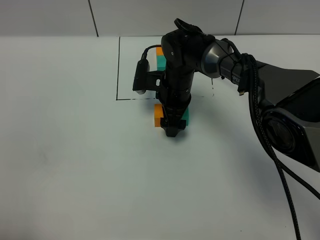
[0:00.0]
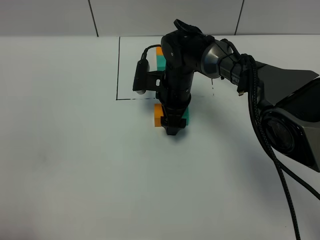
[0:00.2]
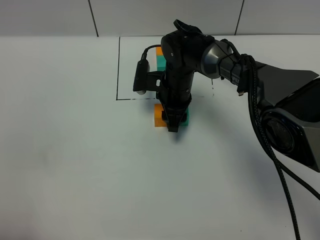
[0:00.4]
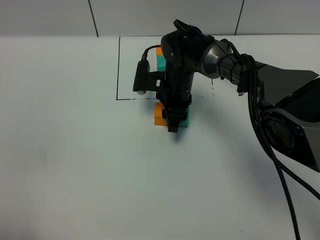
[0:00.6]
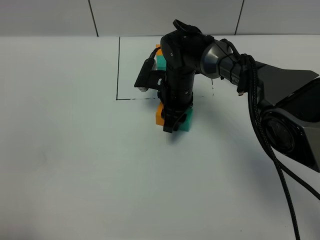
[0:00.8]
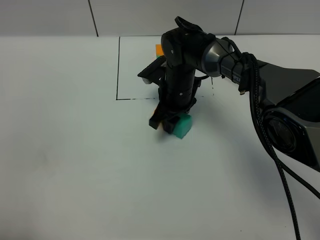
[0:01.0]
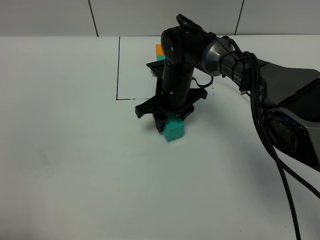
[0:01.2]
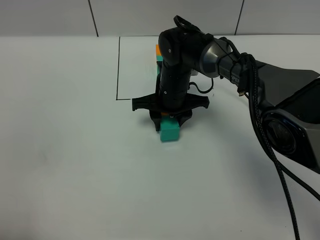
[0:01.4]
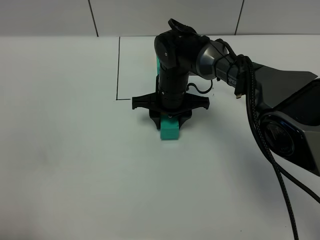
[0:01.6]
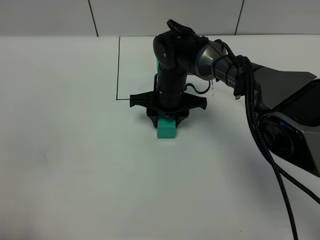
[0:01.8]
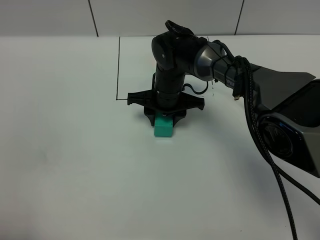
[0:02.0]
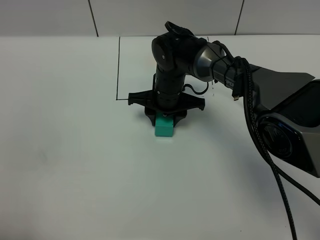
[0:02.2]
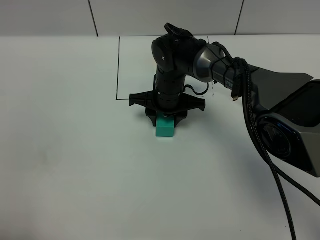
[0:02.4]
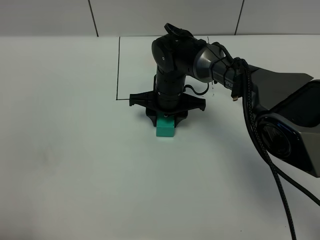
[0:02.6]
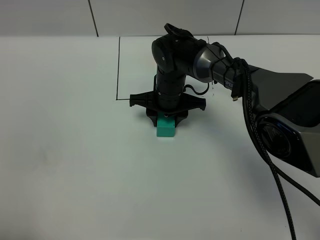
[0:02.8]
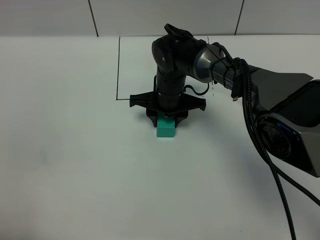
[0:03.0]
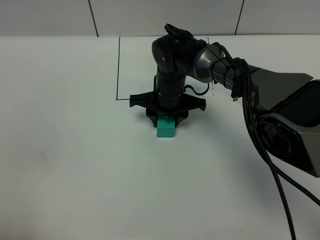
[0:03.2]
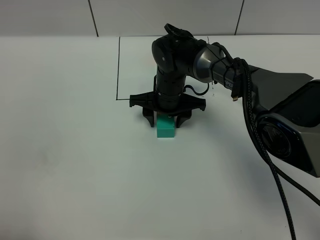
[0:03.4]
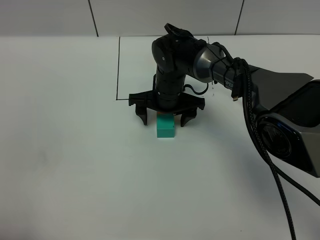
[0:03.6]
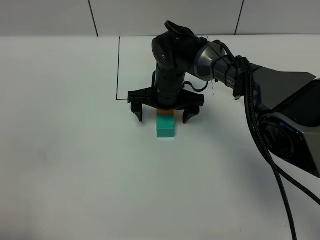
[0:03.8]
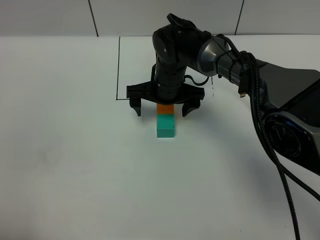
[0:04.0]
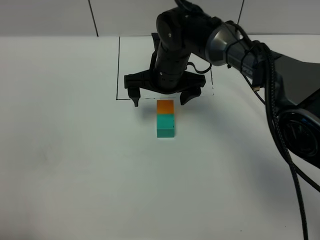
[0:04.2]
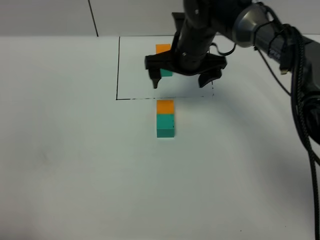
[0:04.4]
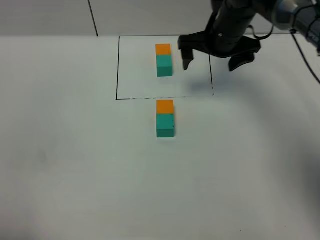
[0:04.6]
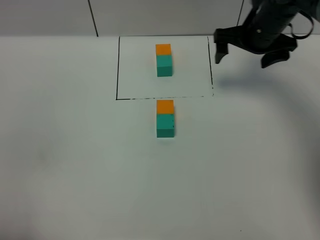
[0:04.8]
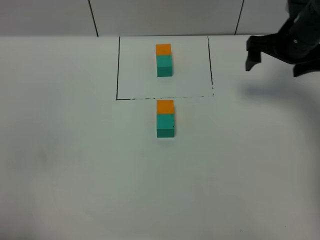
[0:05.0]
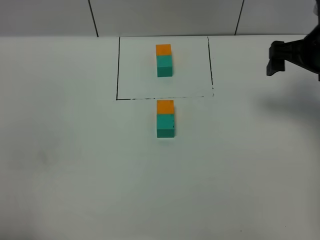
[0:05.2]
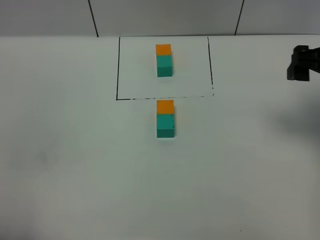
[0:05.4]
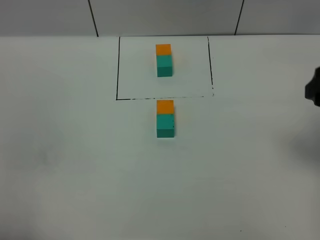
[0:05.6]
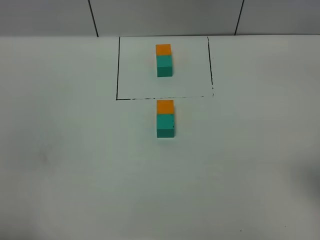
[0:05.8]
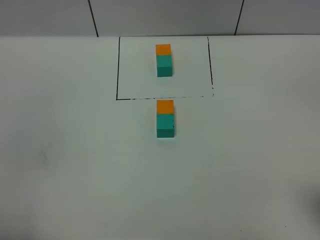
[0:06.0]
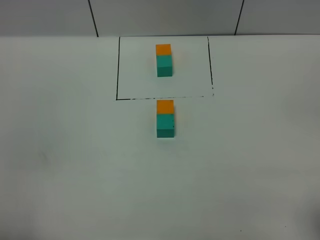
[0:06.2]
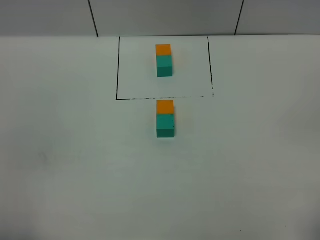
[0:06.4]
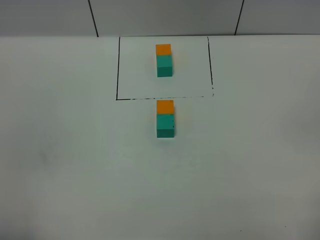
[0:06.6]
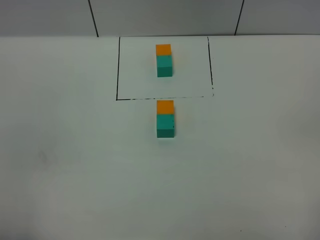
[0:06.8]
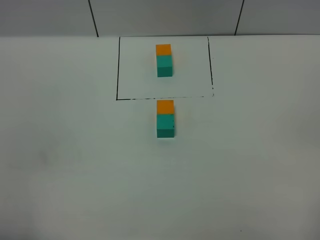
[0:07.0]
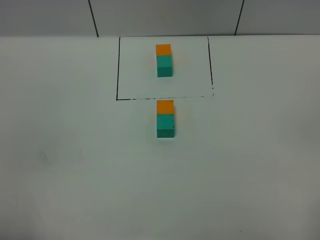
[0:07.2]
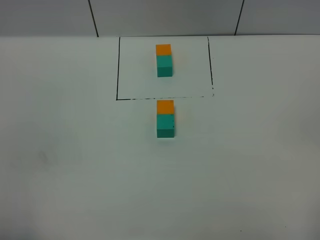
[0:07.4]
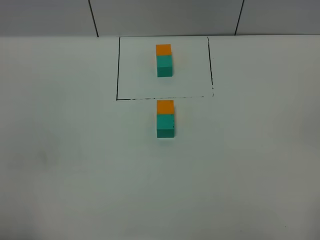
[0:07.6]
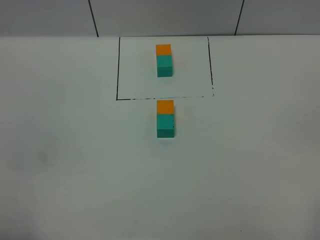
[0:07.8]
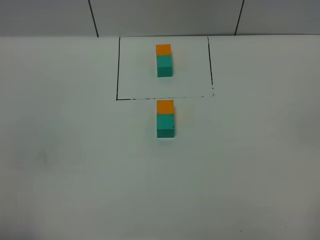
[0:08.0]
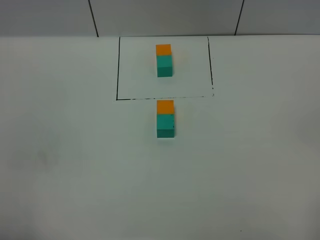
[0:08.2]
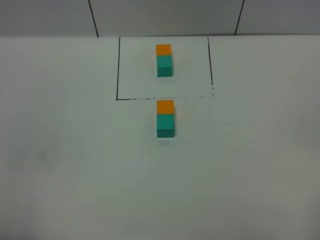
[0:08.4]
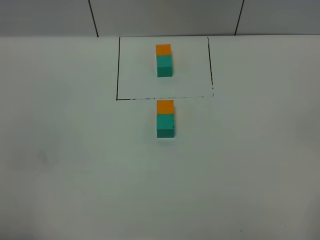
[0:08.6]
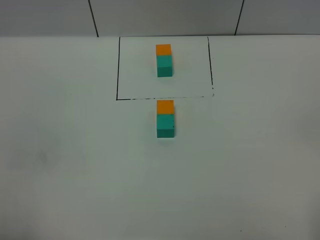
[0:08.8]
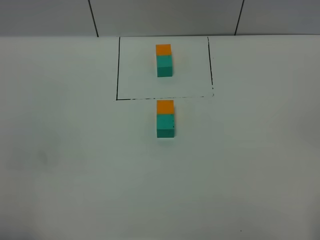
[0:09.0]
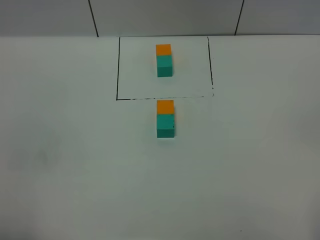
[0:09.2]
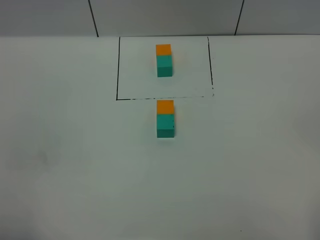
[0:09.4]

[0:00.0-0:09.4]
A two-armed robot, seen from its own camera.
Task of the whole recording: According to the building block template in front, assemble the scattered blocks together.
Step, 0:00.0 to 0:03.8: Adjust the pose of the building blocks.
0:00.0 to 0:01.6: The right gripper closes its fingers.
0:01.6 to 0:03.2: The grippers make only small movements.
0:03.2 to 0:04.8: The right gripper is displaced to the right and upward by some 20 cm, and opens.
0:04.8 to 0:06.2: The right gripper travels backward by roughly 40 cm.

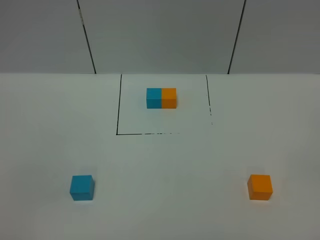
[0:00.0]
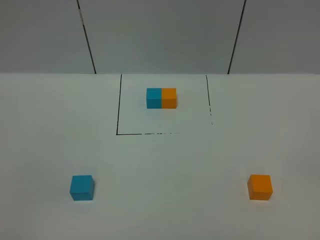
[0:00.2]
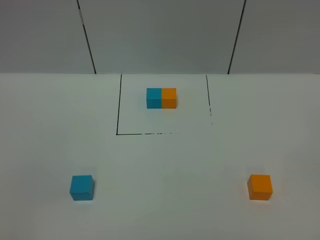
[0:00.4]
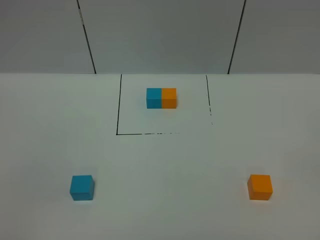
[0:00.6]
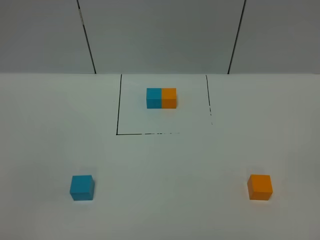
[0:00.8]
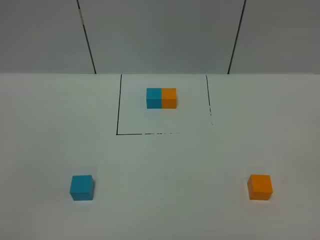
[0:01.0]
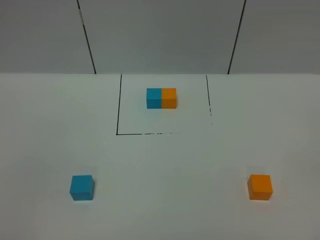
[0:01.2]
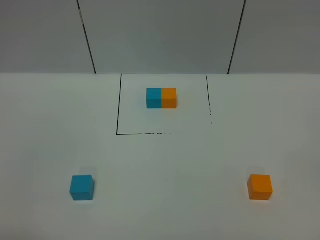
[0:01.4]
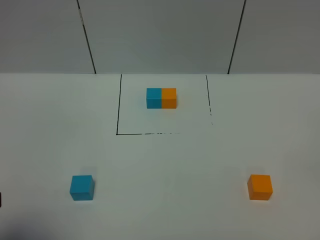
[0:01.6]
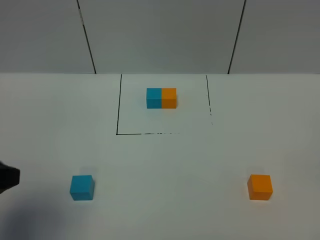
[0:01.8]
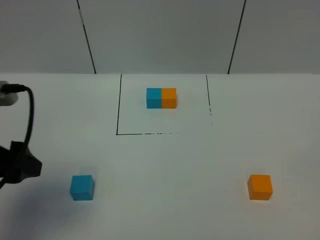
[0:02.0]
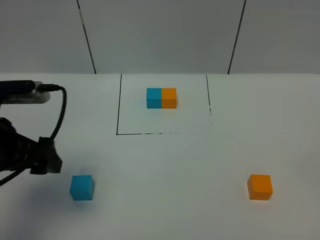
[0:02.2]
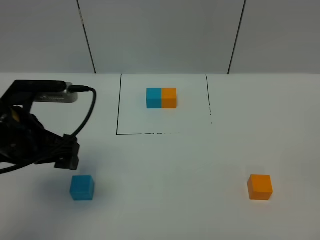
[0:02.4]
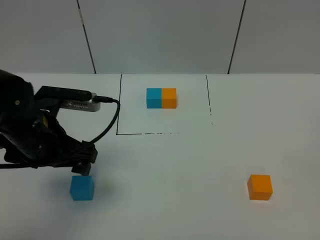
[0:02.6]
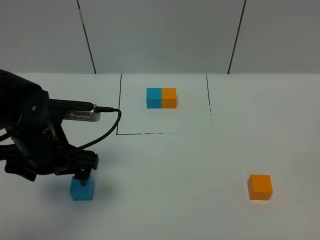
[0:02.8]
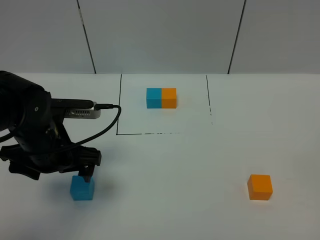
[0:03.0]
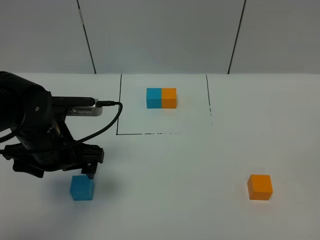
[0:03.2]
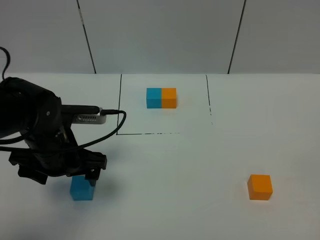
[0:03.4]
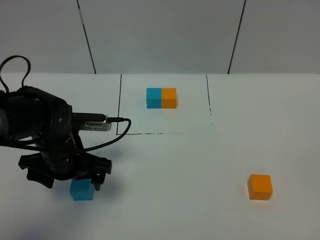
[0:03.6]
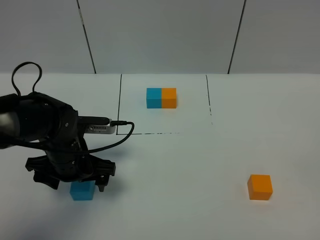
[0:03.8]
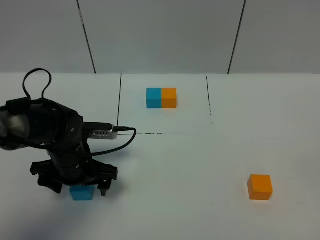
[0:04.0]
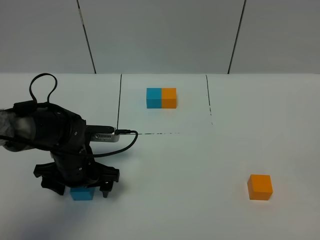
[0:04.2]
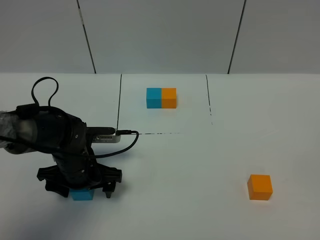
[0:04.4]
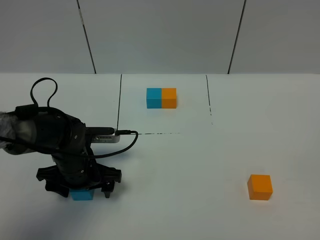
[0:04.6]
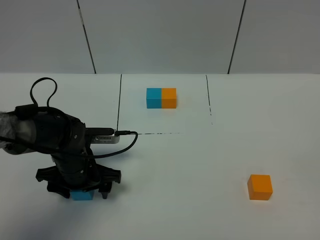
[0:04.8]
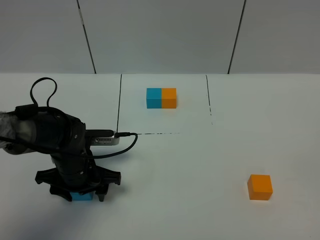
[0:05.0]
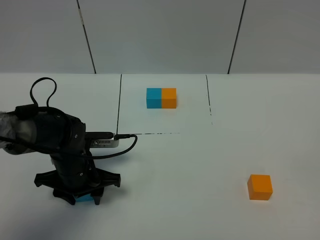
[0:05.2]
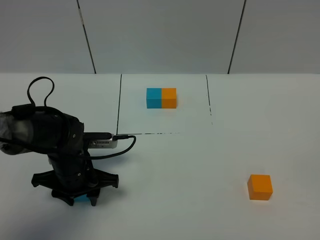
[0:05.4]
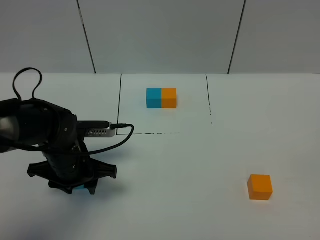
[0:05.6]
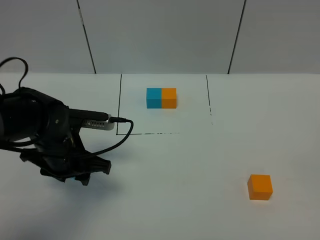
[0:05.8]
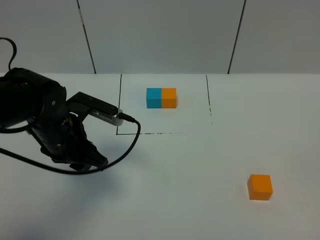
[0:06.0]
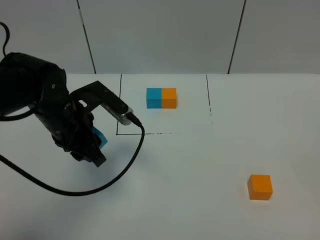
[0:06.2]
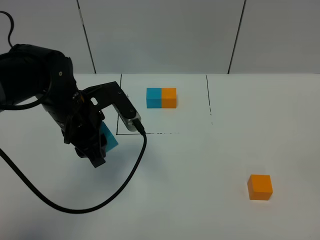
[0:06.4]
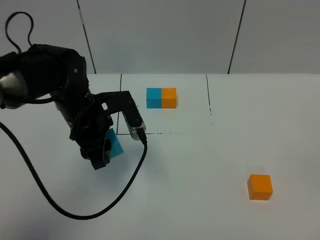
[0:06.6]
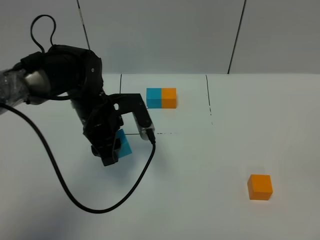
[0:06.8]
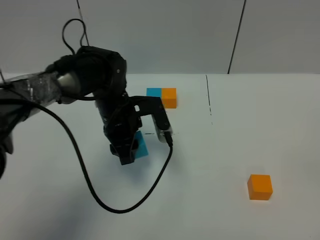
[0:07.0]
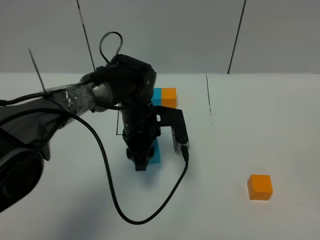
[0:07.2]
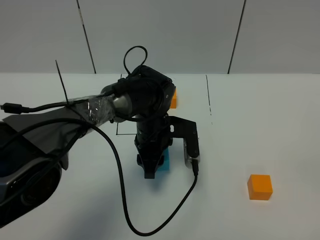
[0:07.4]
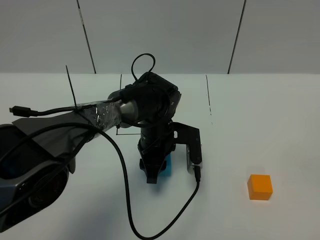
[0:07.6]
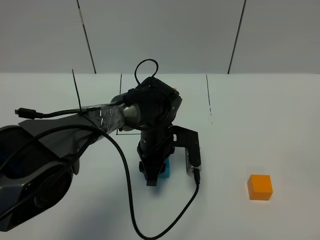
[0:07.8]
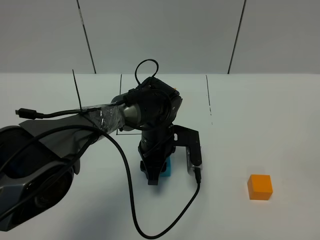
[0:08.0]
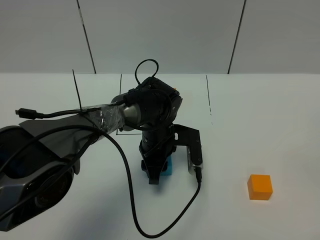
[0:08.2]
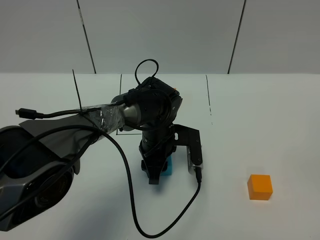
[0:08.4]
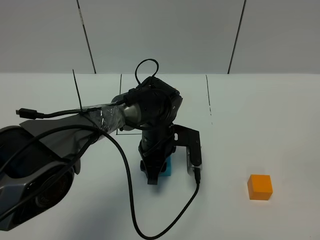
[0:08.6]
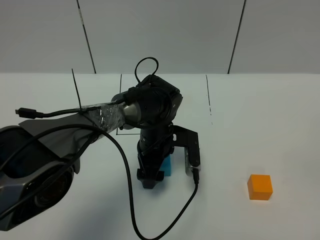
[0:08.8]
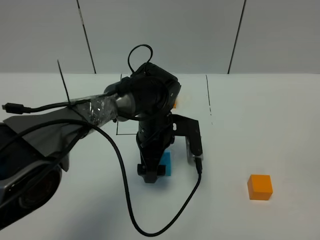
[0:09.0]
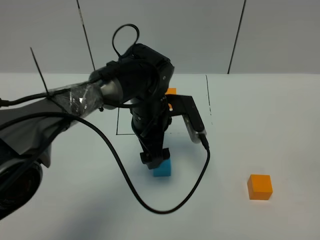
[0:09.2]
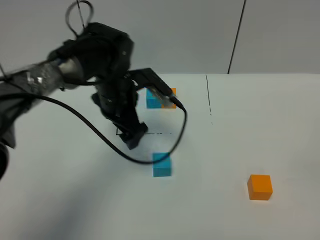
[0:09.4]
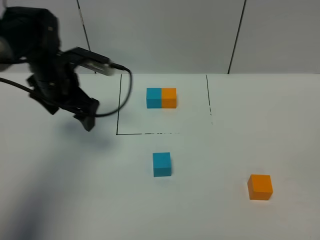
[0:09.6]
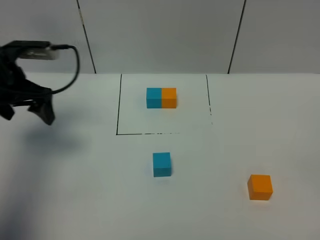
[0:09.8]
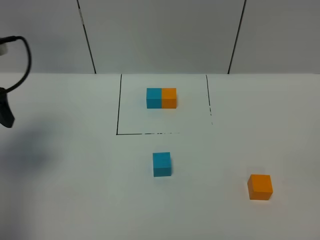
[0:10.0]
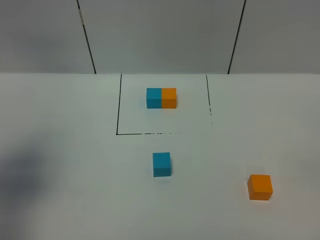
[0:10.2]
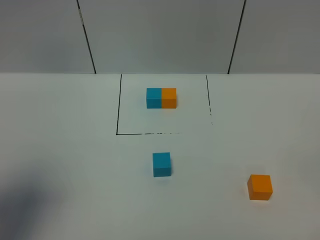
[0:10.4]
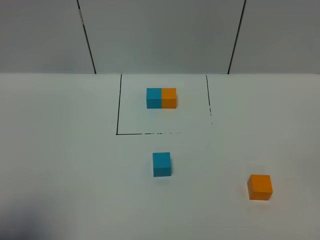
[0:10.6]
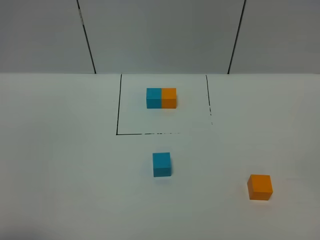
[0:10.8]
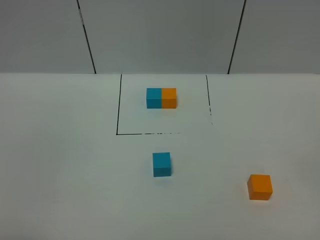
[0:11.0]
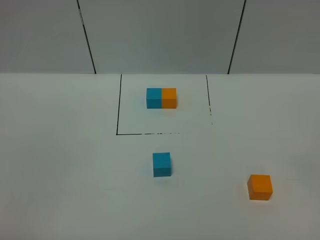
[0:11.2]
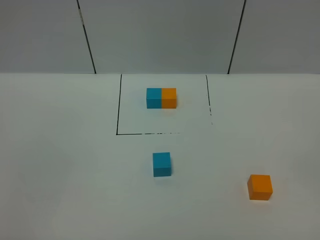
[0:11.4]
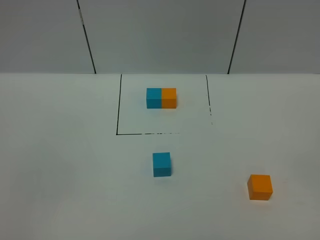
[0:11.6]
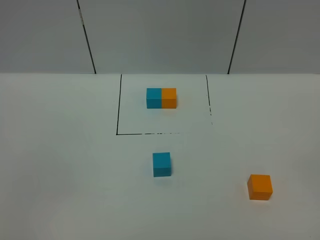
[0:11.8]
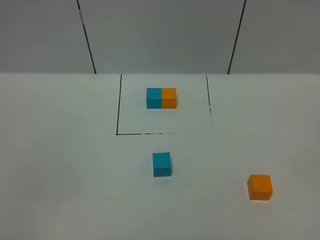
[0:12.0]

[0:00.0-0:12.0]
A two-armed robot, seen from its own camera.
Task of the whole recording: According to the building block template in front, assemble the scattered blocks together.
Step, 0:01.6 to 0:09.2: Put the blue cube in the center of the table.
0:00.0 to 0:01.6: The left gripper goes some 10 cm forward.
0:01.6 to 0:03.0: The left gripper is displaced forward, downward and to the right by roughly 25 cm.
0:03.0 to 0:04.4: The left gripper shifts roughly 10 cm downward.
0:04.4 to 0:06.0: The left gripper goes roughly 10 cm upward, and closes its fingers.
0:06.0 to 0:07.6: The left gripper shifts some 20 cm to the right, downward and forward.
0:07.6 to 0:09.0: The left gripper opens its fingers.
0:09.0 to 0:10.4: The left gripper goes some 40 cm to the left, upward and backward.
0:10.4 to 0:12.0: The left gripper travels backward and downward by approximately 20 cm.

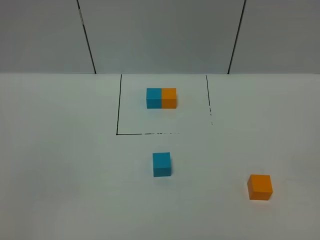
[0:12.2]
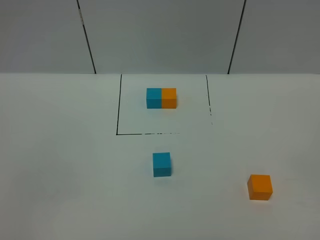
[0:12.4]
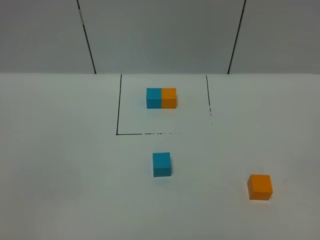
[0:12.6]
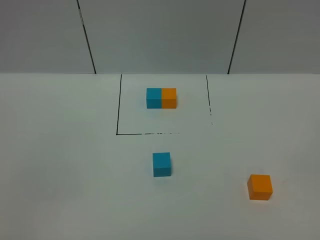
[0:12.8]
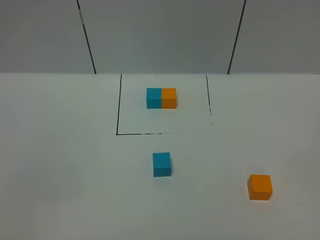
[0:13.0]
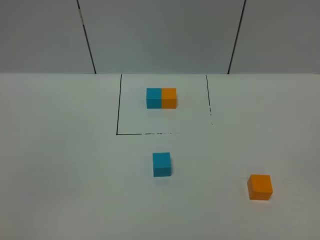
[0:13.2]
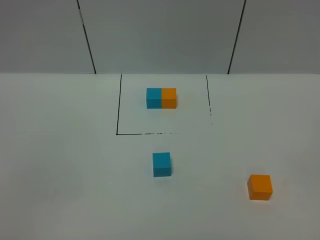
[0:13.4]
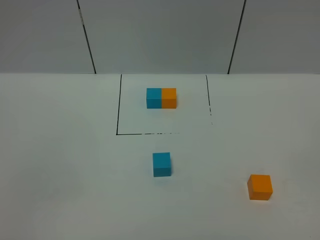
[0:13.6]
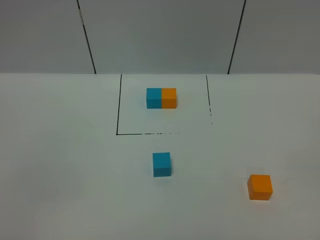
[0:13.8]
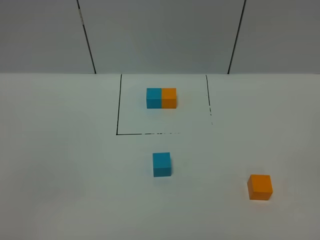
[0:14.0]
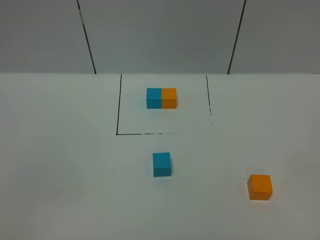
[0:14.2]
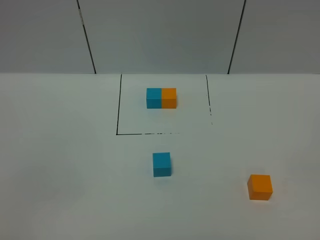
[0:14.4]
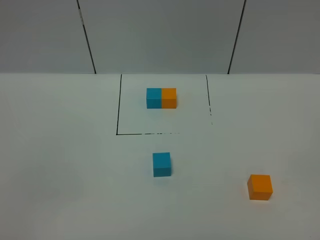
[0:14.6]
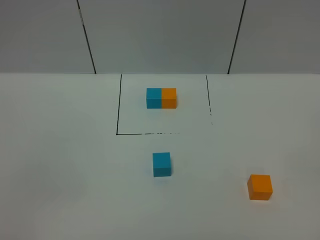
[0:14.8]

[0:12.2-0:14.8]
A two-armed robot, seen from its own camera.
Task of the whole recording: According to the building block template in front, assemble the scattered blocks together.
0:12.2 to 0:13.4: The two grippers keep their place.
0:13.4 to 0:14.8: Neither gripper changes place.
